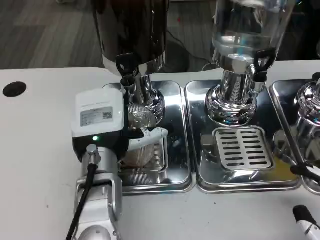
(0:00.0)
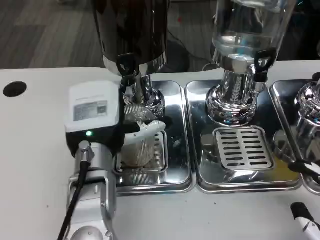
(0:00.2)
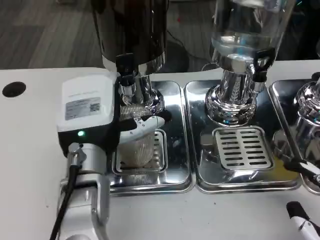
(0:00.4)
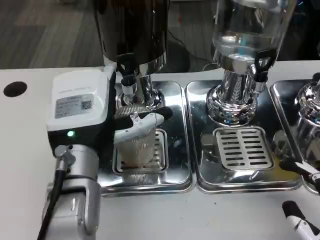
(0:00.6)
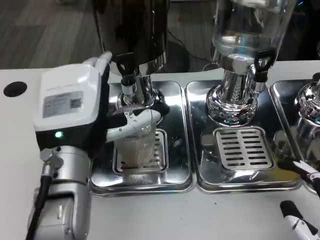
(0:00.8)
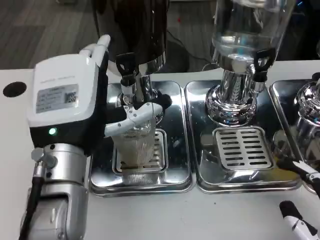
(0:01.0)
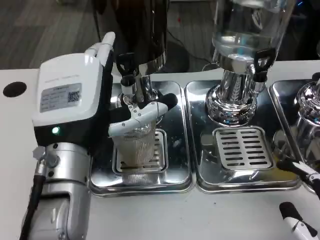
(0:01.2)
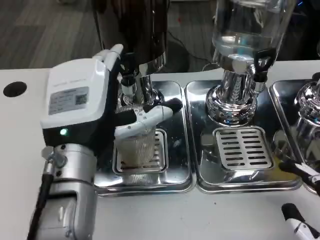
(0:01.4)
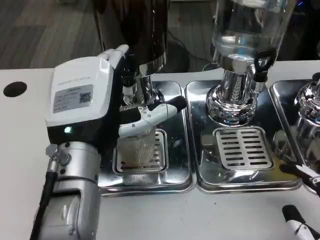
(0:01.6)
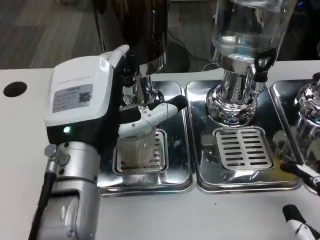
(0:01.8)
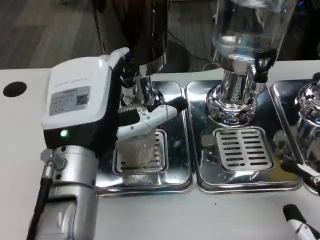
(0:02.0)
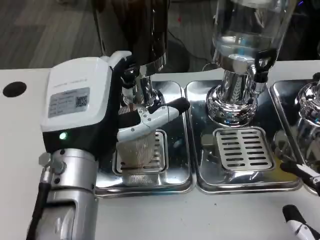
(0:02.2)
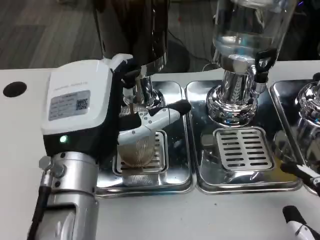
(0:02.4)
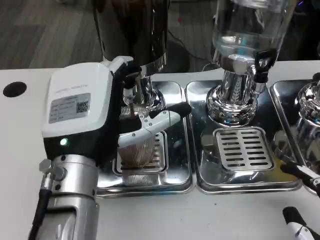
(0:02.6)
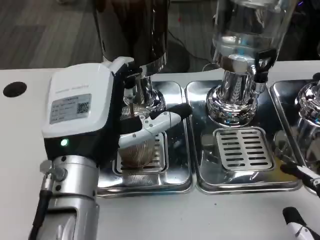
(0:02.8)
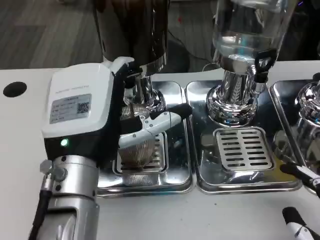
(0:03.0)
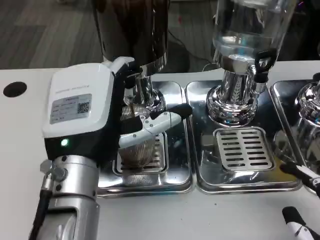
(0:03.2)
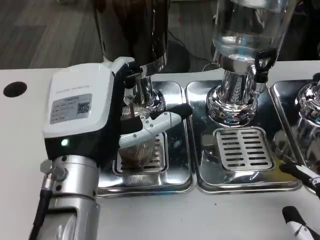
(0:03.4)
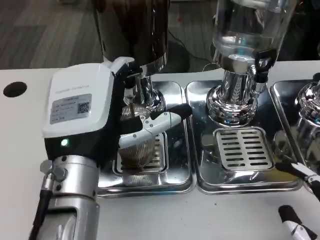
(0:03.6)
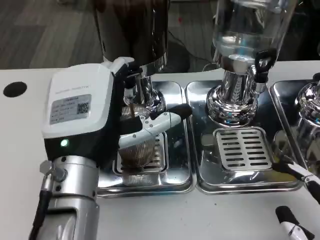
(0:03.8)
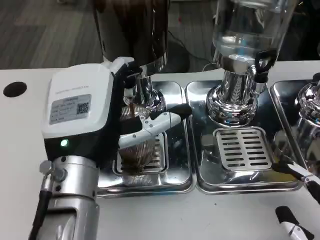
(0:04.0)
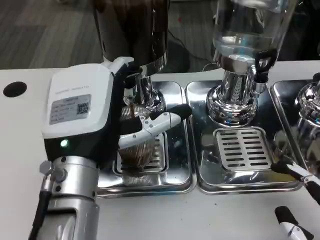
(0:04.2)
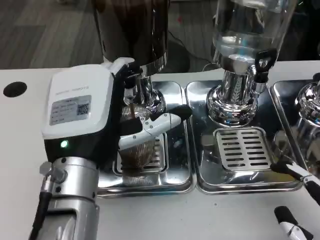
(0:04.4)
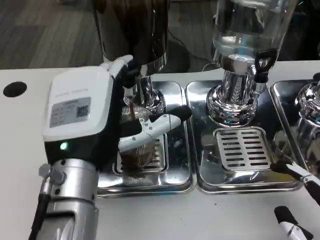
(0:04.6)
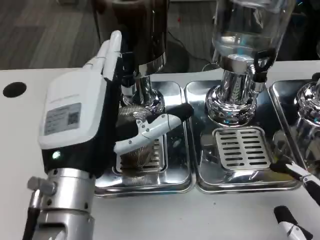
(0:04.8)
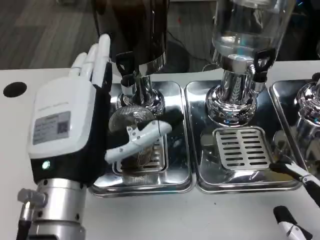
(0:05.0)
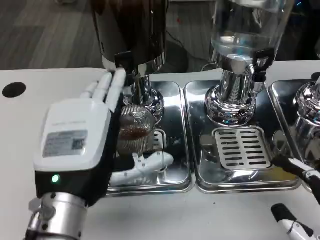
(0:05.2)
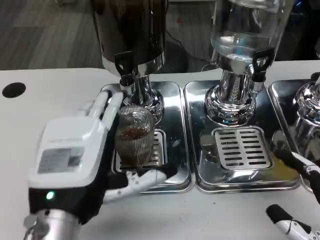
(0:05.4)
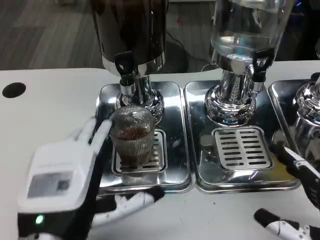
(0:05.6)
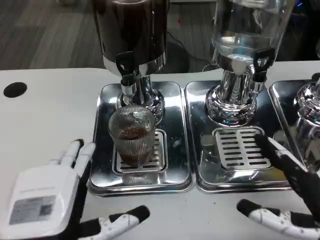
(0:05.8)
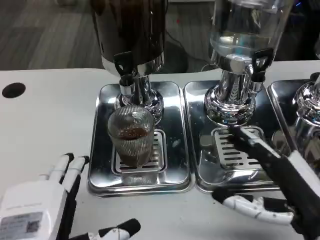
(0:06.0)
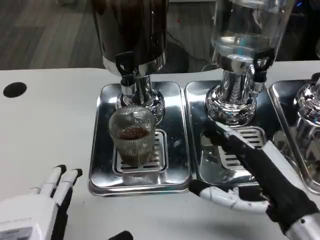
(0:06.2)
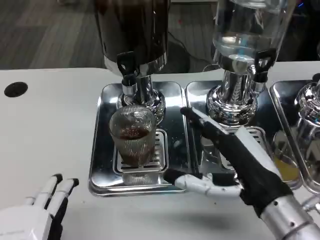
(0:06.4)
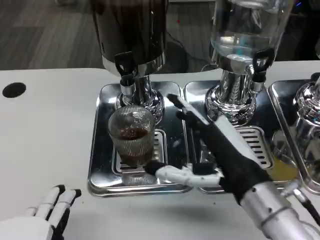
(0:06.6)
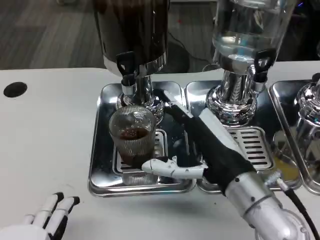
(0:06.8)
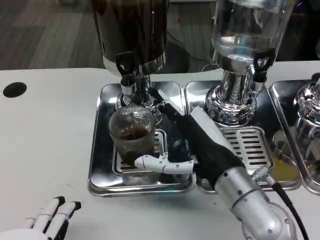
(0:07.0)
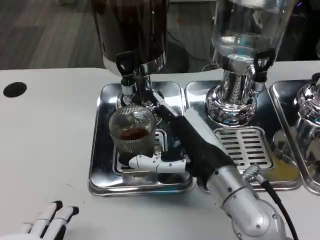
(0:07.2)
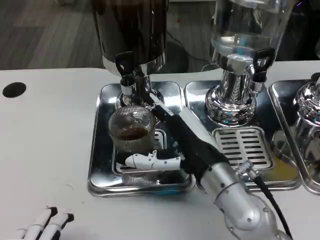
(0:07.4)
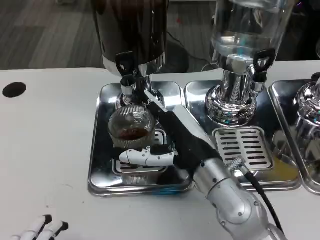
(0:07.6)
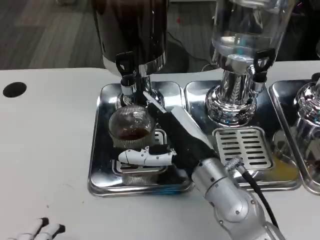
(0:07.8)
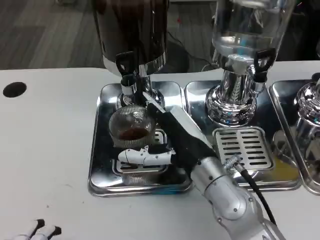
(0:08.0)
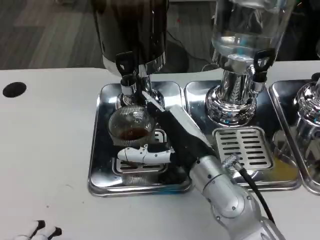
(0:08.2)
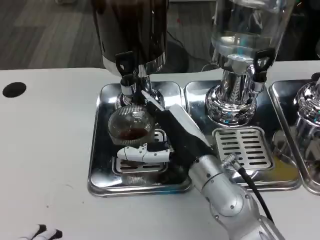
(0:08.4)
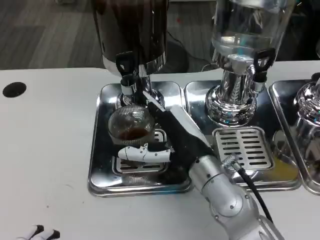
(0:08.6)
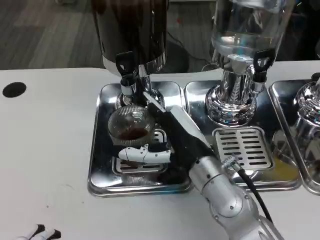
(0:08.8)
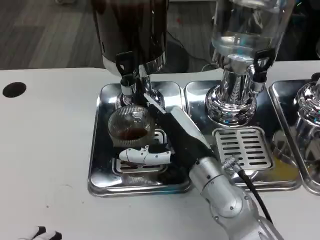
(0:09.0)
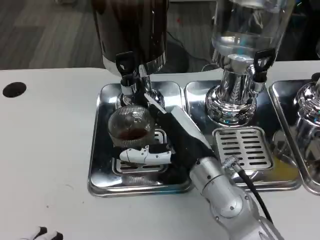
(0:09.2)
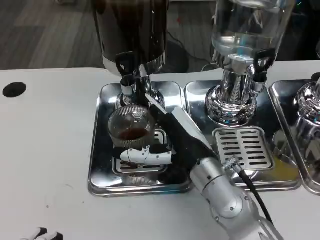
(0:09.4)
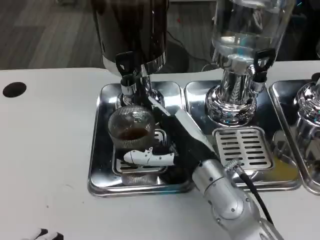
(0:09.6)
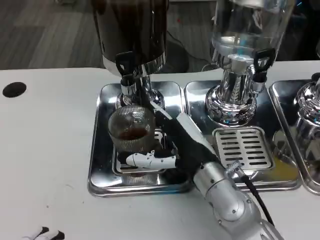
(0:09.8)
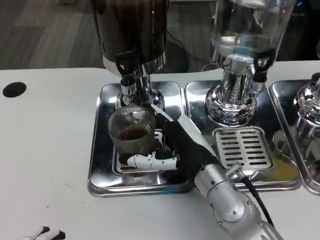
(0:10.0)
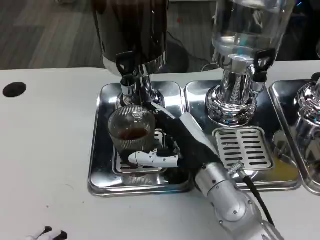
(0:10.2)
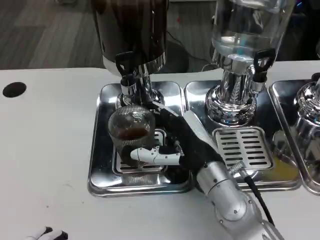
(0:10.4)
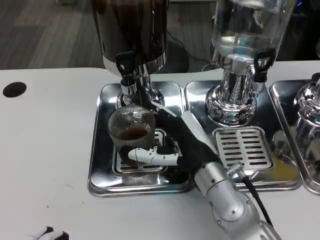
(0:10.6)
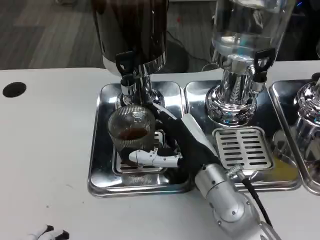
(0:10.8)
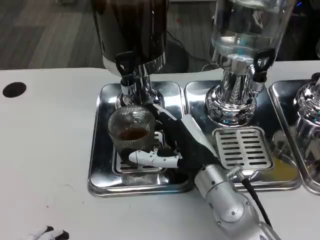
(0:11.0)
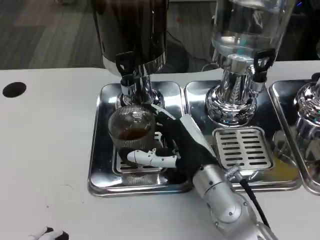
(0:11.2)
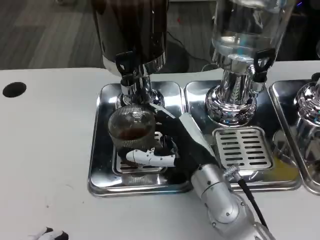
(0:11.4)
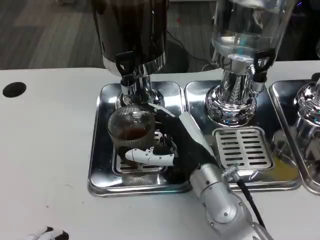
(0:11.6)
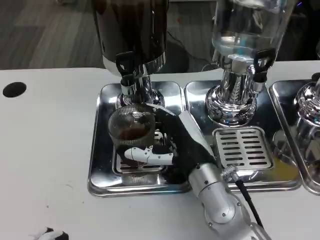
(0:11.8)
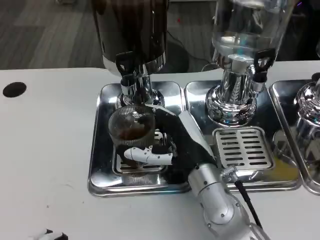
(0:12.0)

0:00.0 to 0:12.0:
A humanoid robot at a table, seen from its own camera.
Task of the whole recording: Grasp the cup under the faucet to collect the drink, then remove the cup.
0:00.0 to 0:01.6: The left hand moves upward, some 5 cm.
0:01.6 to 0:03.0: There are only small adjustments of the hands.
0:03.0 to 0:04.4: Both hands stay put.
0:04.4 to 0:06.0: The right hand is displaced forward by some 5 cm; the left hand goes approximately 10 cm backward and to the left.
0:06.0 to 0:07.6: The left hand travels backward by about 5 cm. Meanwhile the right hand shifts some 15 cm to the left and forward.
0:07.6 to 0:12.0: The hands stay close to where they were, moving slightly.

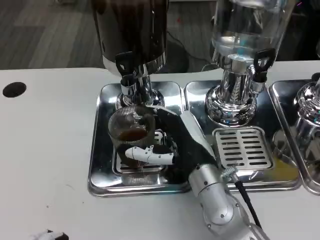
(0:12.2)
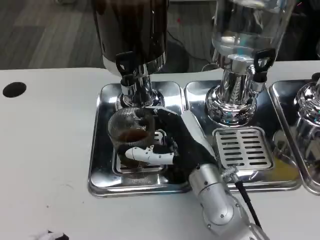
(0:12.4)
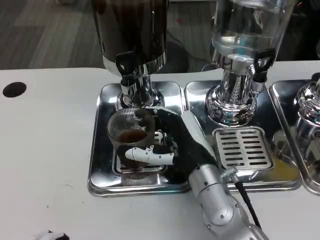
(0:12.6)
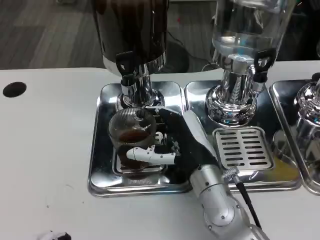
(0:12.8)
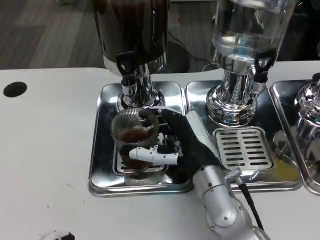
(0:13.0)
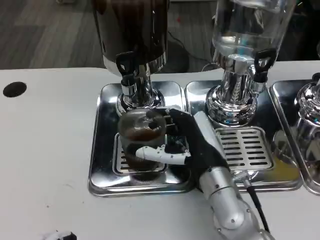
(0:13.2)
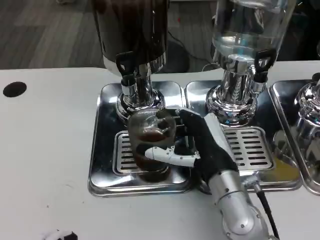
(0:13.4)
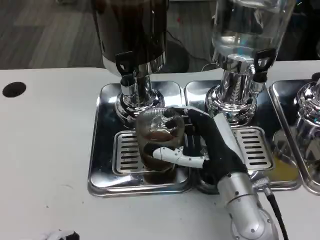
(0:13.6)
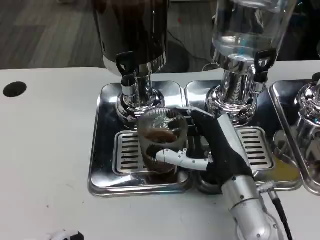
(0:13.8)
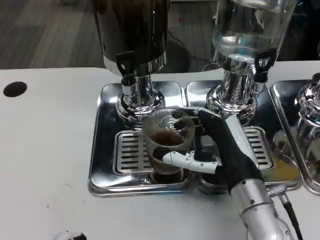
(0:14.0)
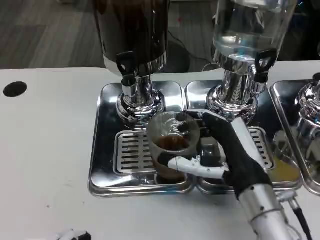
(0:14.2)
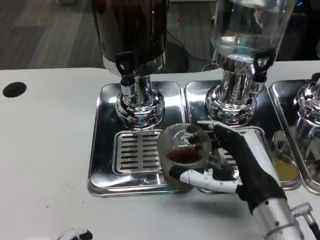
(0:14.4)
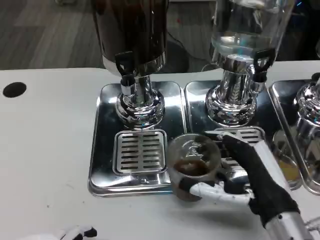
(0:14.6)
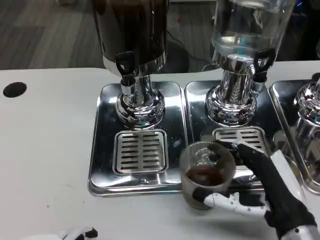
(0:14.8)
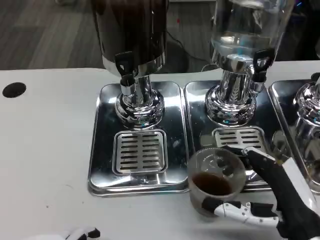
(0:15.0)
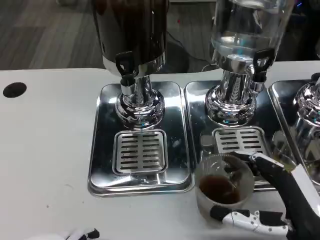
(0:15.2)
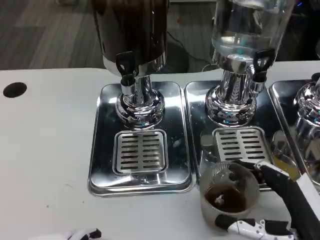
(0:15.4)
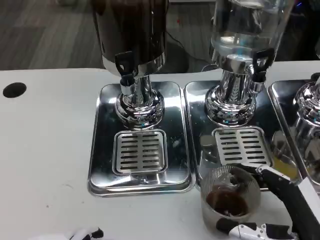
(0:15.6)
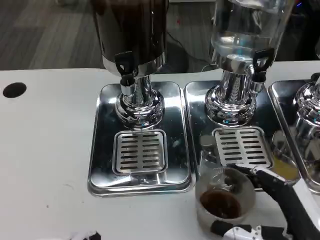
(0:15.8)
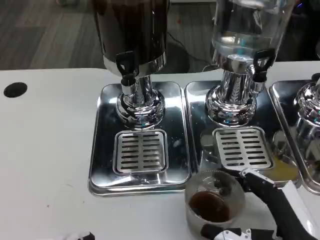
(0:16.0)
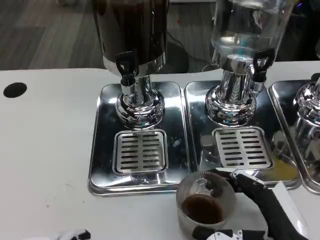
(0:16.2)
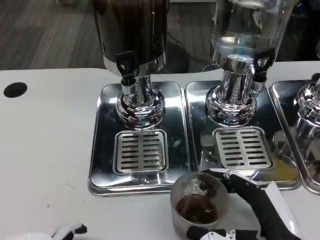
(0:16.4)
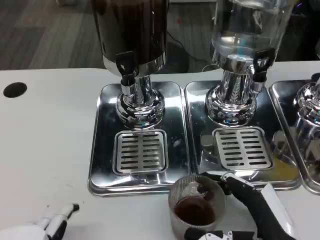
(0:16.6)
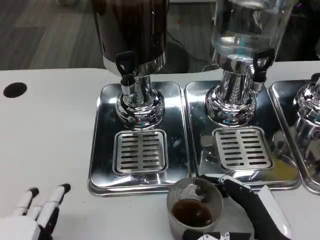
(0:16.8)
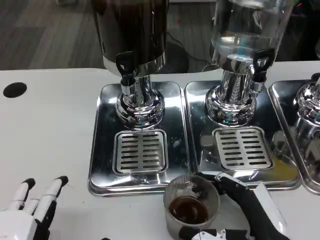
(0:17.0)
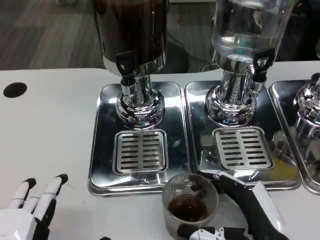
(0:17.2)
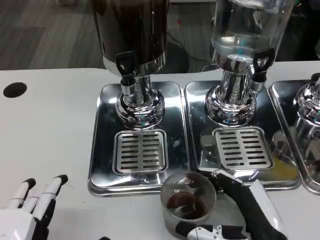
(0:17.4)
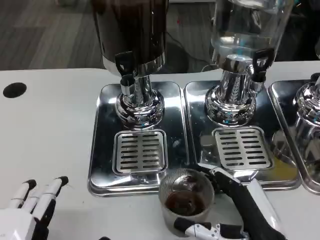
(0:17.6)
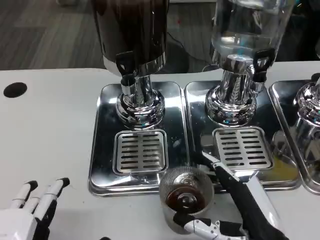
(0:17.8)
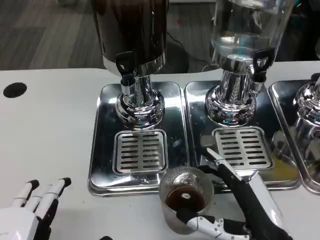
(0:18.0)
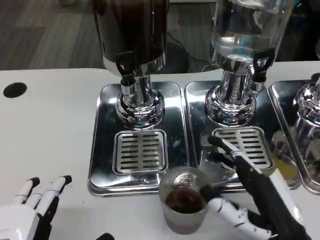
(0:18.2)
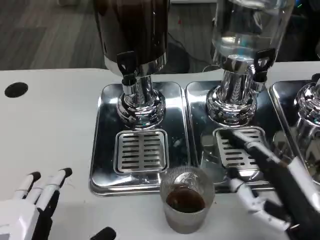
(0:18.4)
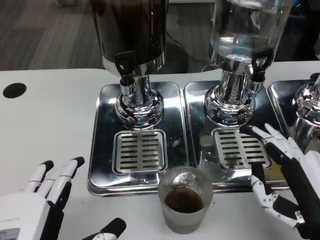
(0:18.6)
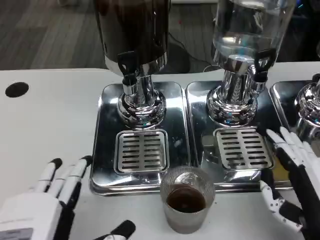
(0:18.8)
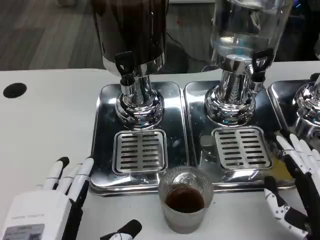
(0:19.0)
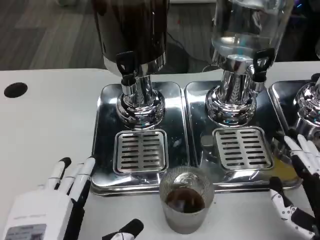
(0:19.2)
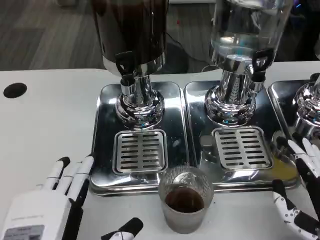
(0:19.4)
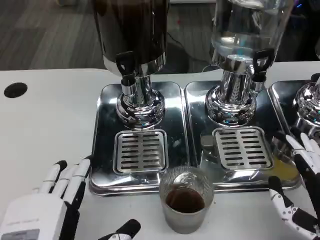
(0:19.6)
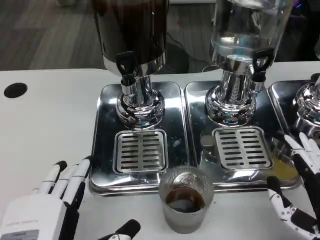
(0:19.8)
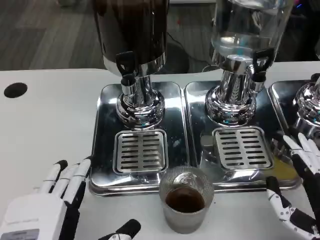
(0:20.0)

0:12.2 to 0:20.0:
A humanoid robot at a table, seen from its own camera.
Task of the whole recording: Grasp the cup under the faucet to collect the drink, then remove the cup.
0:12.2 to 0:13.8: The hands move only a little.
0:13.8 to 0:15.4: The right hand heads backward and to the right, covering some 15 cm.
0:15.4 to 0:16.8: The hands stay close to where they were, moving slightly.
0:16.8 to 0:18.4: The right hand shifts by some 5 cm.

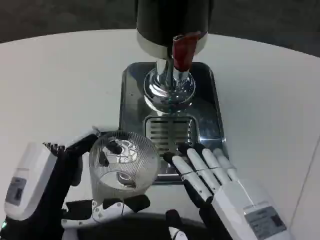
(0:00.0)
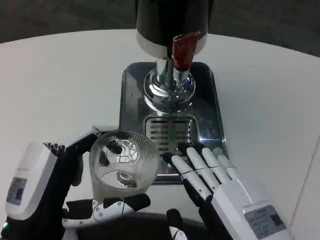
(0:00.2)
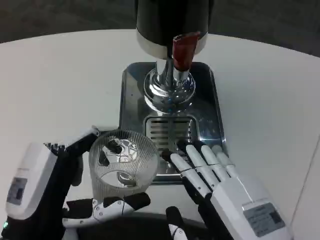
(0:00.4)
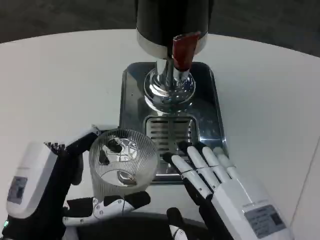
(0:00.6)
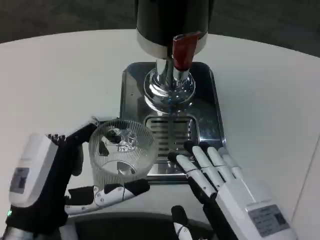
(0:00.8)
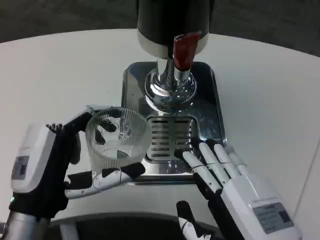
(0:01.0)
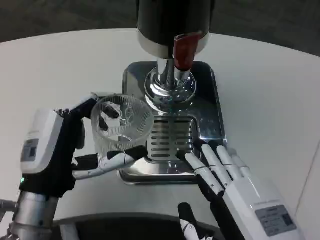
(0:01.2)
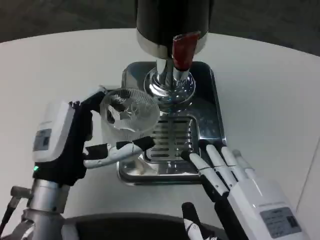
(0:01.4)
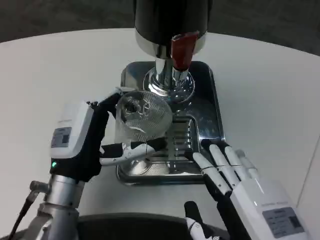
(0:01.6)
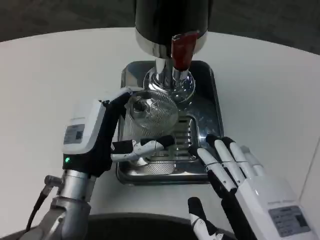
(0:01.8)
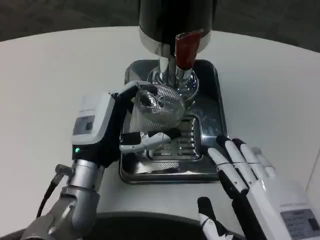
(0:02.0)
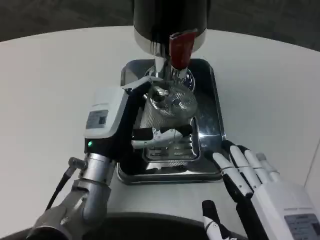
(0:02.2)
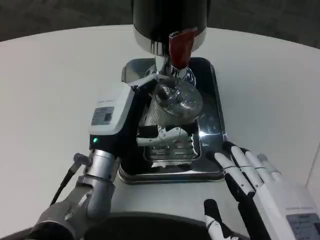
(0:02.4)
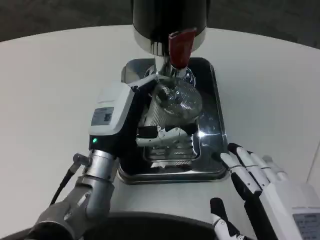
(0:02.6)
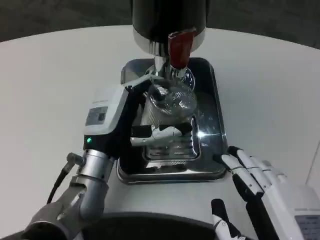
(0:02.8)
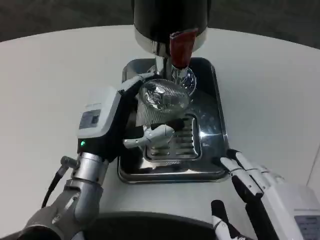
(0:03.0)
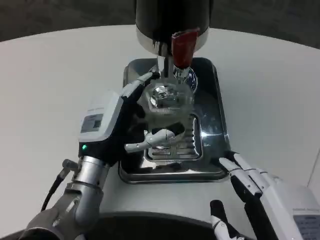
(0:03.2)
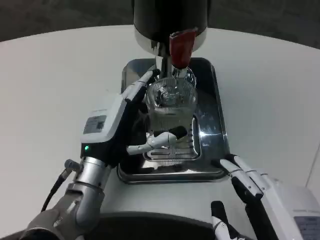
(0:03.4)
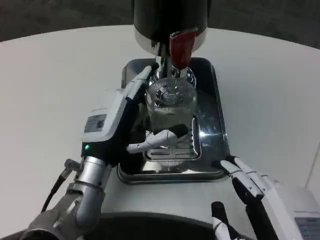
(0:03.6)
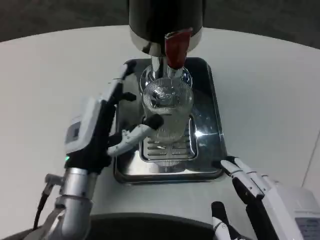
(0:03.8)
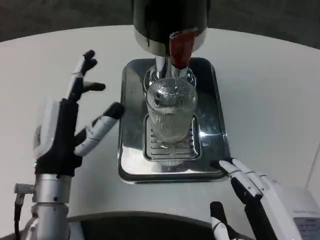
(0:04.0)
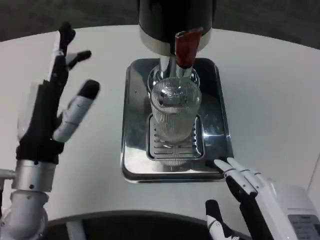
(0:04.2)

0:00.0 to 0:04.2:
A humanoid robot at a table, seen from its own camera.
Task of the whole recording: Grasp the cup under the faucet to collect the drink, then remove the cup.
0:00.0 to 0:01.4: The left hand goes roughly 10 cm forward.
0:01.4 to 0:02.8: The left hand travels forward by about 5 cm.
0:02.8 to 0:04.2: The left hand moves to the left and backward, about 10 cm.
